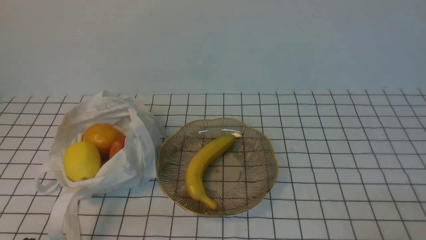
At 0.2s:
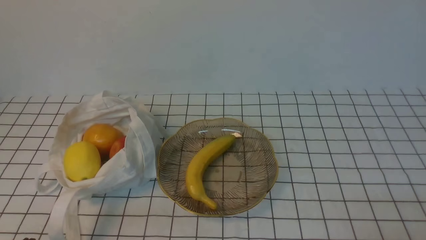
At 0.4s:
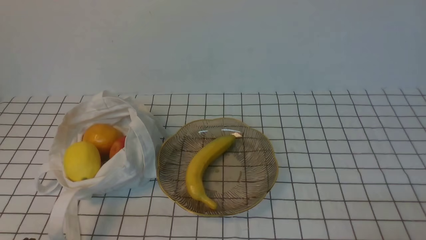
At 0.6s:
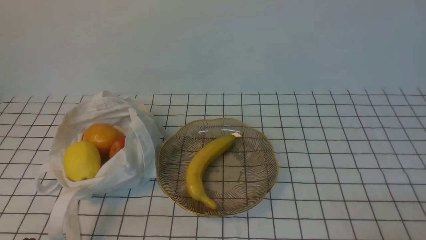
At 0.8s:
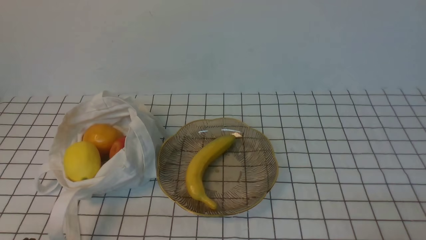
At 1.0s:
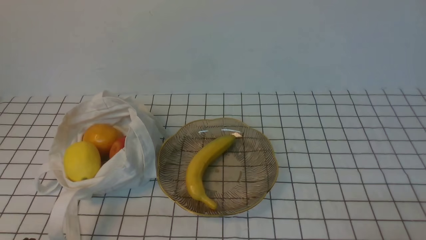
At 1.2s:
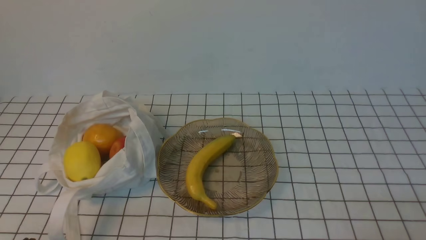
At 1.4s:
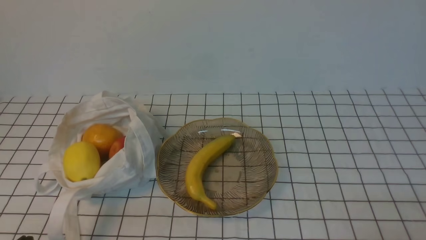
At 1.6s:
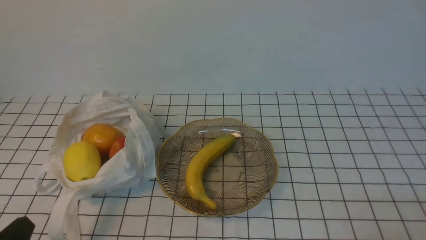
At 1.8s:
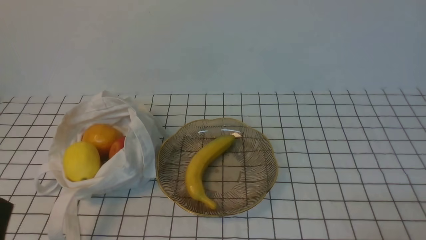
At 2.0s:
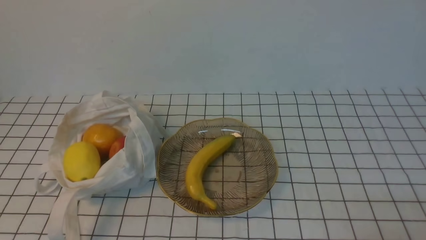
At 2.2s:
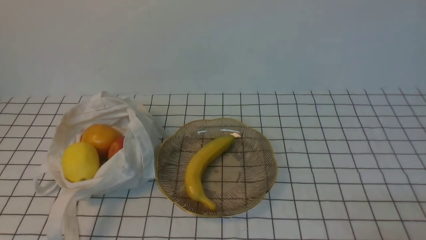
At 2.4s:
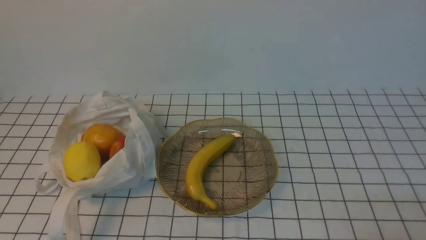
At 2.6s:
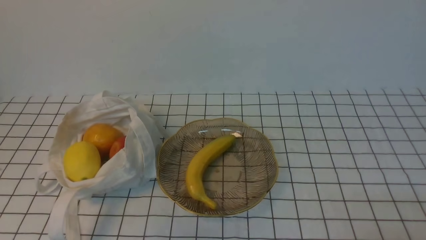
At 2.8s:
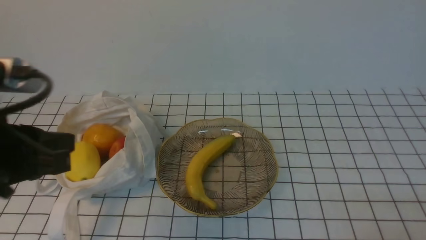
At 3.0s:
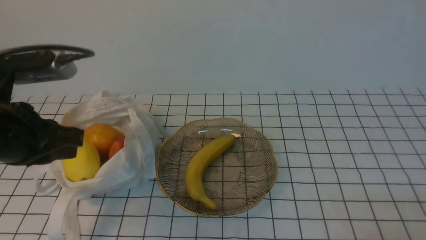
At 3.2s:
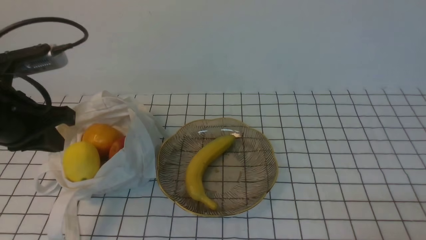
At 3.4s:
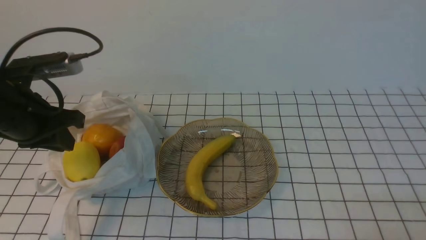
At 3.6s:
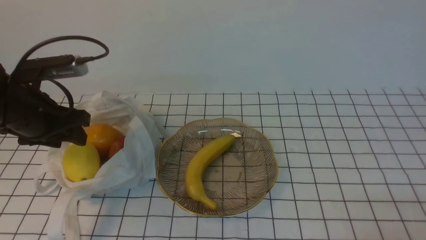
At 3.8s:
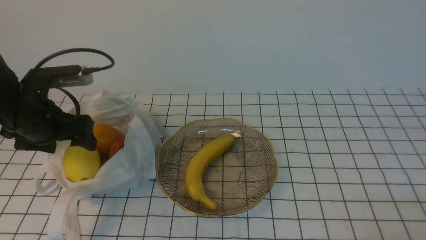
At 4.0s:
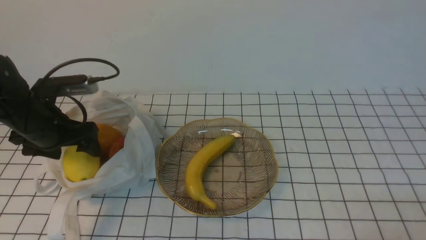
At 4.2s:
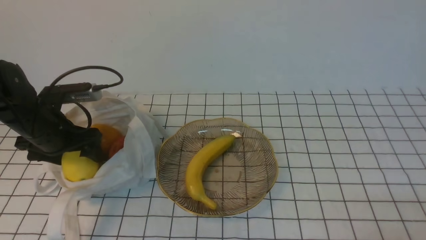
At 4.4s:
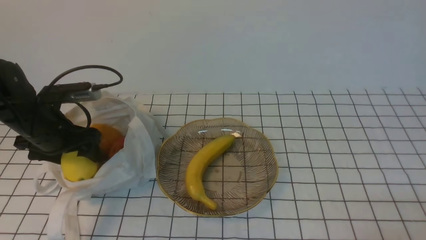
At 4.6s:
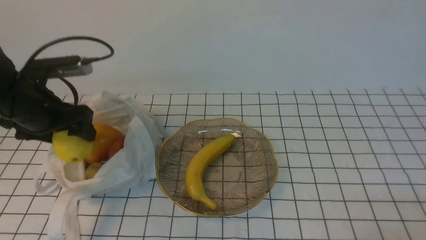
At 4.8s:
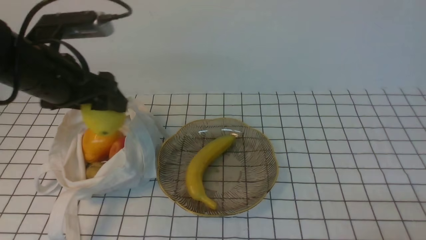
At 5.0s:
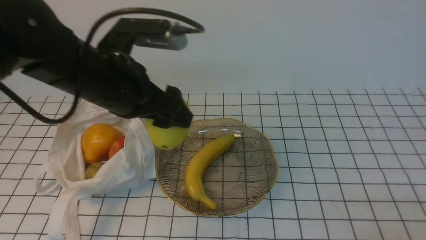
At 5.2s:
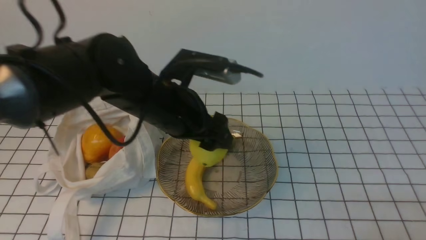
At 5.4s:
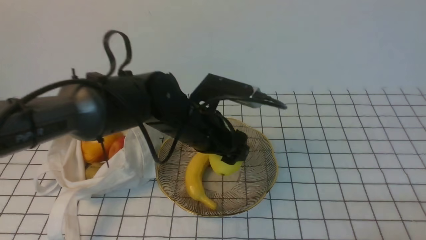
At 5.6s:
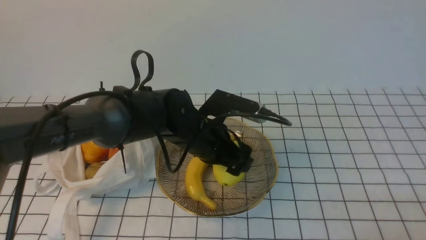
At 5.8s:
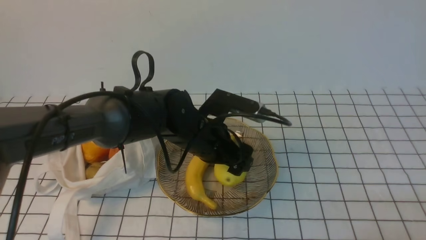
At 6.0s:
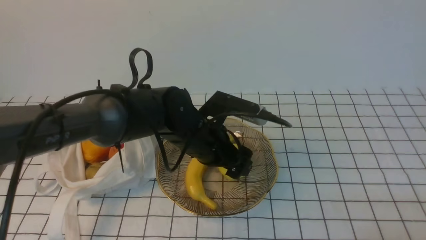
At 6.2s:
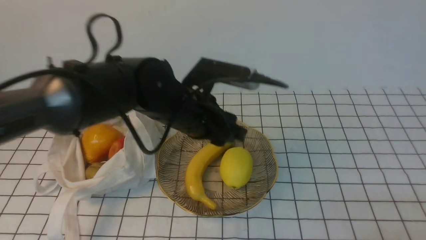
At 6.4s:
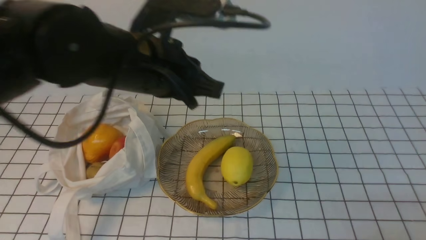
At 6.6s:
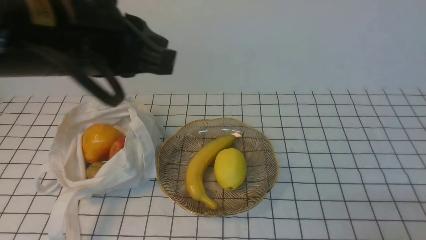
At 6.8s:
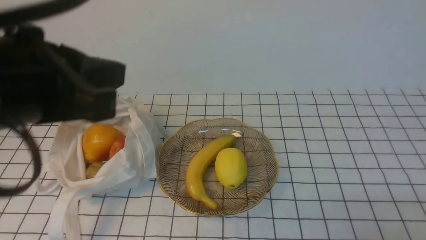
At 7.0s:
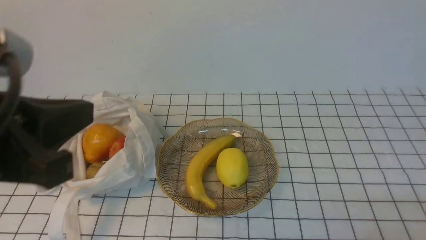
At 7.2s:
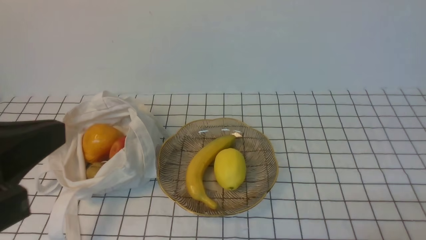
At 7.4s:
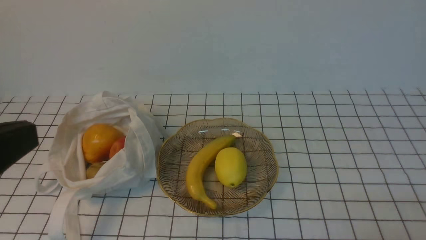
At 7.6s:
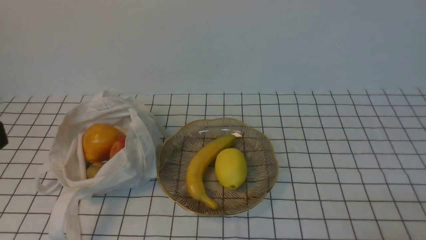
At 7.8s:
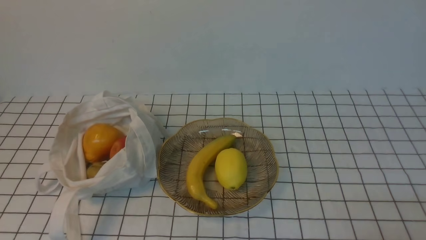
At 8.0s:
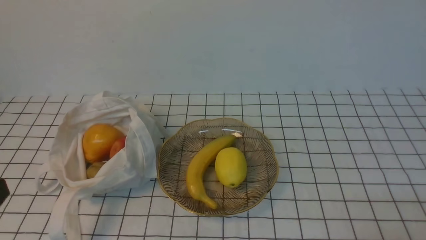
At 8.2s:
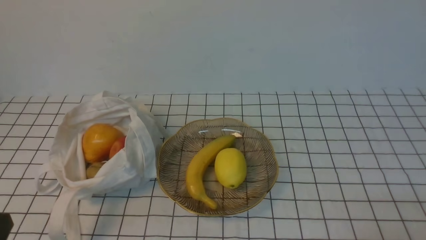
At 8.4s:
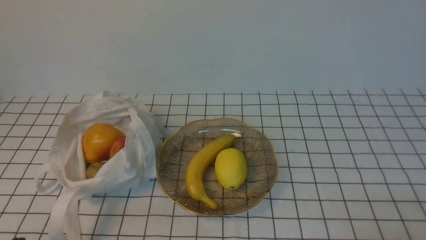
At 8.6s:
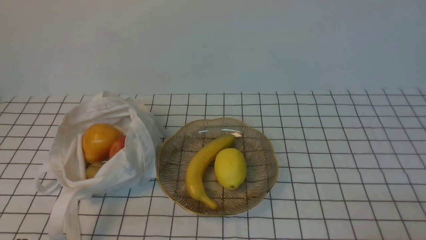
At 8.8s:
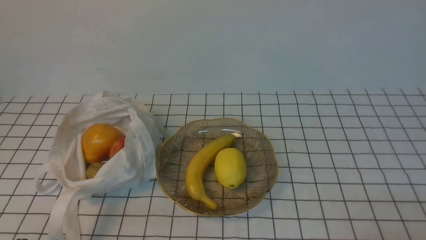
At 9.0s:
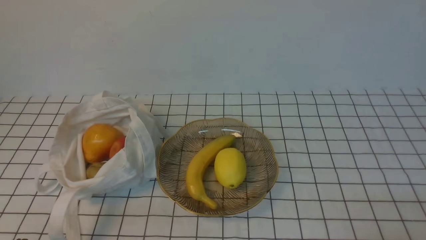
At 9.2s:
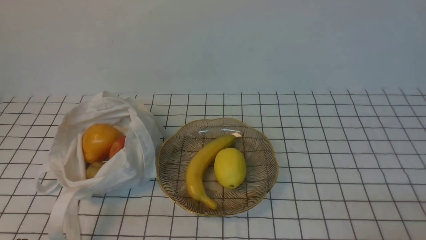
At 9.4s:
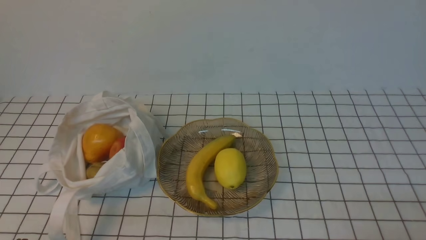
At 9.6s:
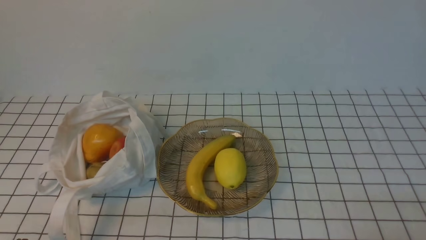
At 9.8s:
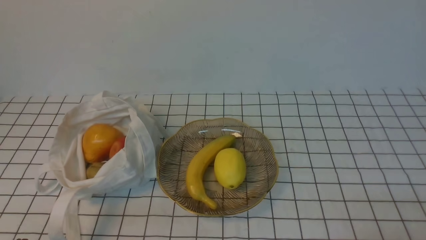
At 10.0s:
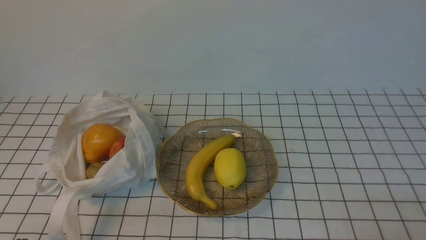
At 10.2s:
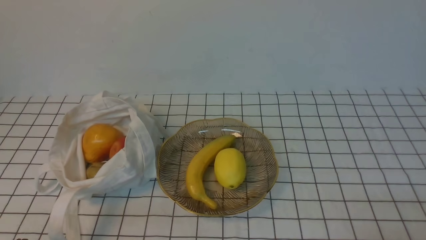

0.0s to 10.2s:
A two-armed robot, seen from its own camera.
Step, 0.0s to 4.4s: use the left arm to grab a lemon from the bag.
Step, 4.6s to 5.8s: use the left arm to put the lemon into the empty plate on the right.
1.4s to 3.0s: The left gripper goes some 20 cm forward and upward.
3.0s to 4.4s: The left gripper goes roughly 15 cm forward and downward, and opens.
4.4s to 5.8s: The left gripper is displaced to the right by roughly 25 cm.
5.8s to 7.2s: The left gripper travels backward, upward and to the left by approximately 35 cm, and closes.
7.2s to 8.8s: The left gripper moves downward, roughly 20 cm.
8.8s to 10.2s: Both grippers stay about where they are.
